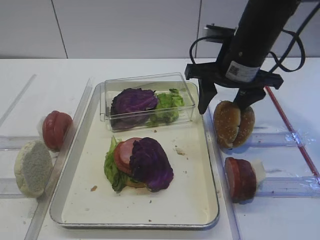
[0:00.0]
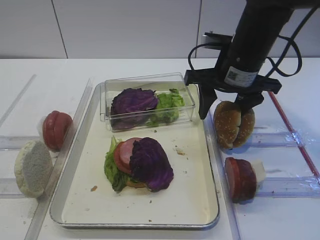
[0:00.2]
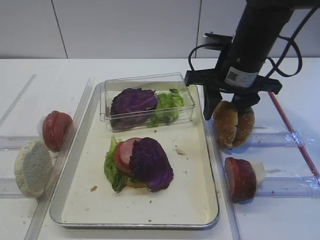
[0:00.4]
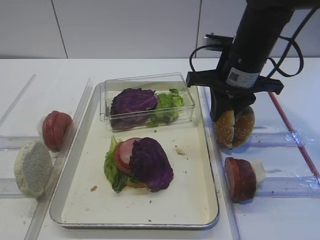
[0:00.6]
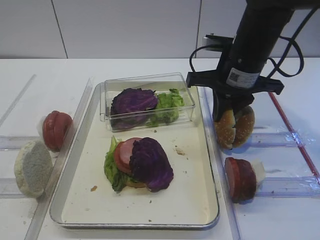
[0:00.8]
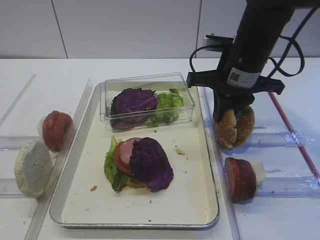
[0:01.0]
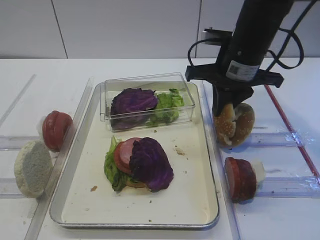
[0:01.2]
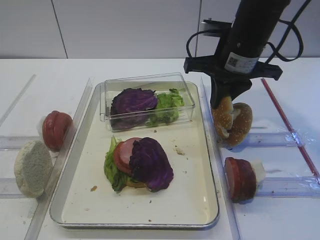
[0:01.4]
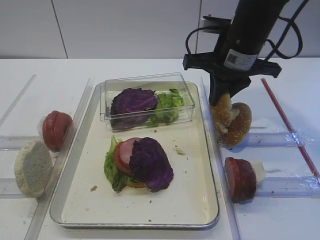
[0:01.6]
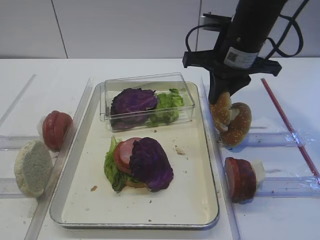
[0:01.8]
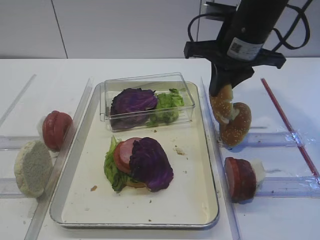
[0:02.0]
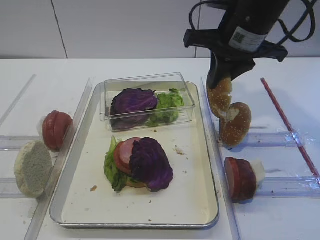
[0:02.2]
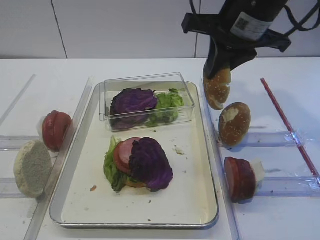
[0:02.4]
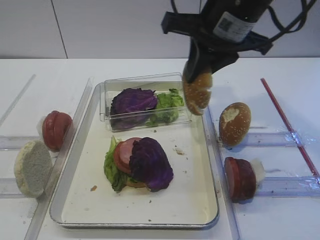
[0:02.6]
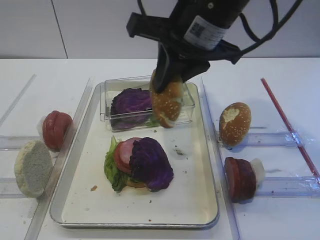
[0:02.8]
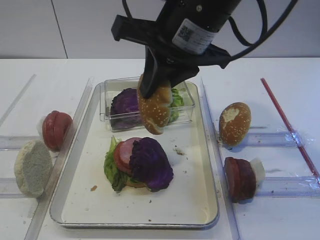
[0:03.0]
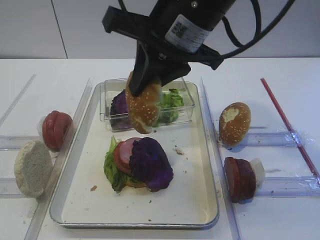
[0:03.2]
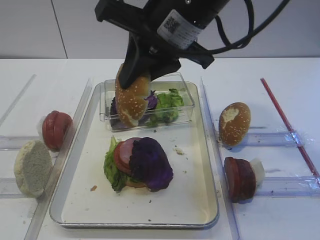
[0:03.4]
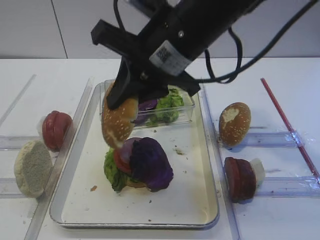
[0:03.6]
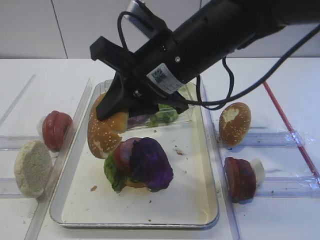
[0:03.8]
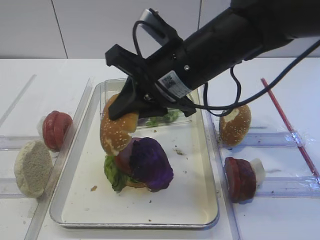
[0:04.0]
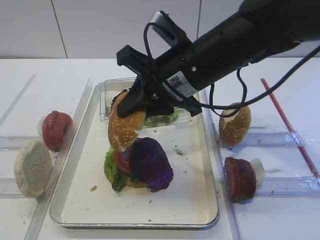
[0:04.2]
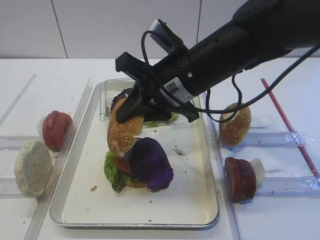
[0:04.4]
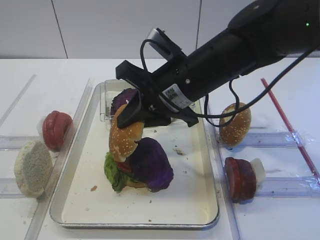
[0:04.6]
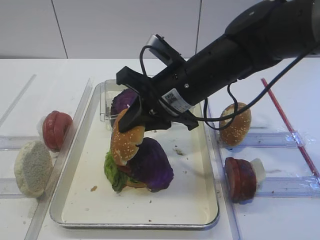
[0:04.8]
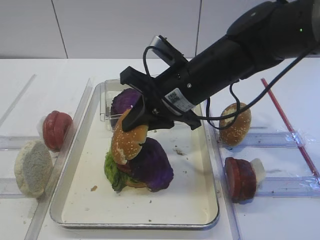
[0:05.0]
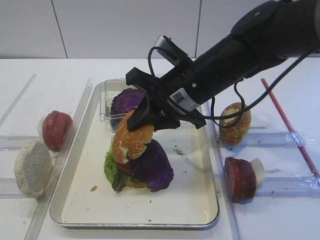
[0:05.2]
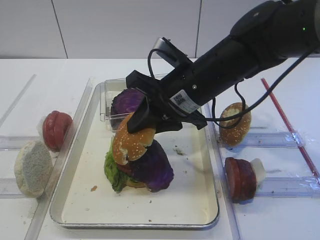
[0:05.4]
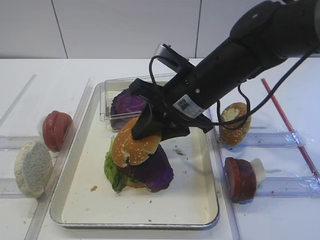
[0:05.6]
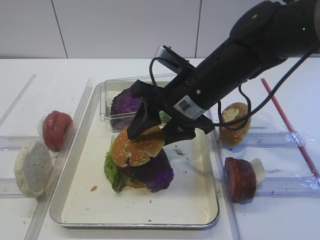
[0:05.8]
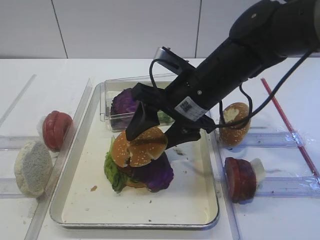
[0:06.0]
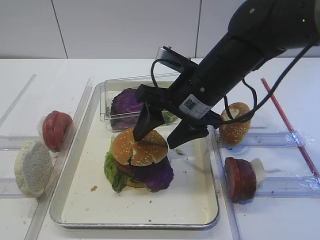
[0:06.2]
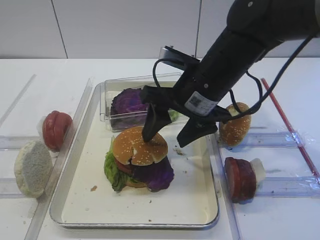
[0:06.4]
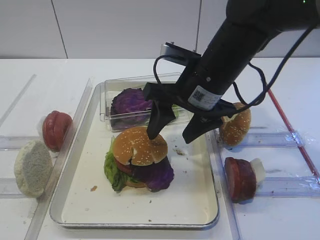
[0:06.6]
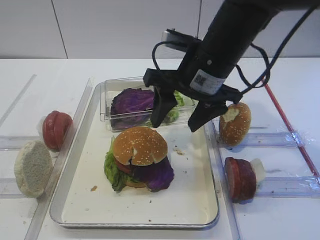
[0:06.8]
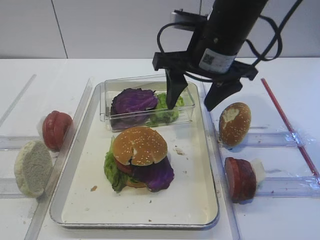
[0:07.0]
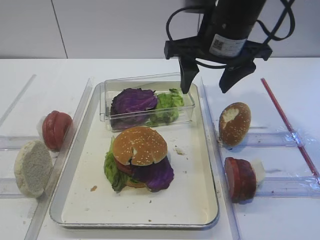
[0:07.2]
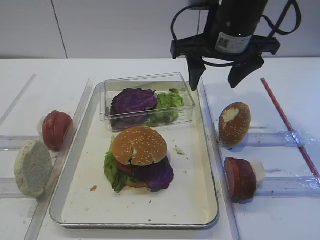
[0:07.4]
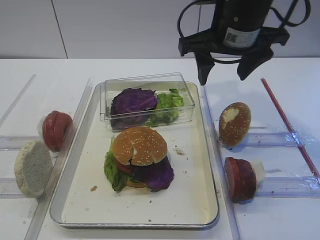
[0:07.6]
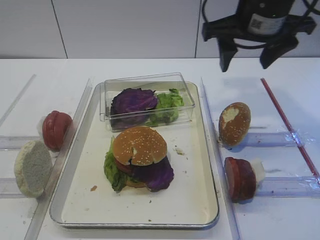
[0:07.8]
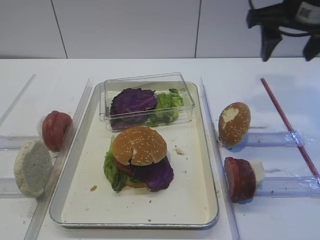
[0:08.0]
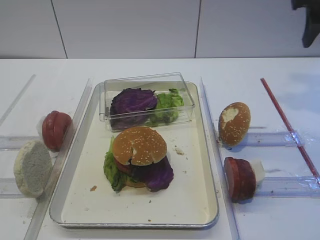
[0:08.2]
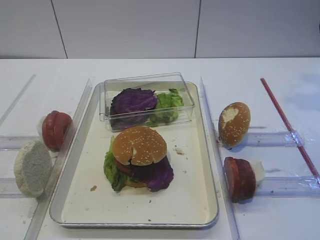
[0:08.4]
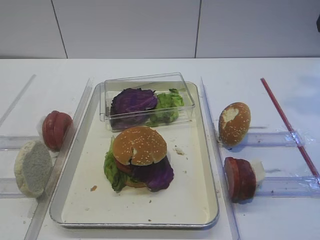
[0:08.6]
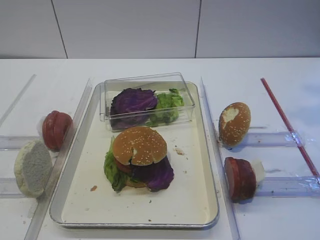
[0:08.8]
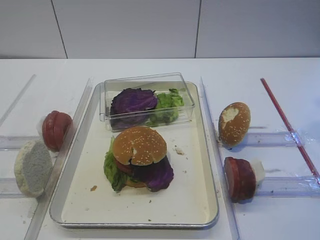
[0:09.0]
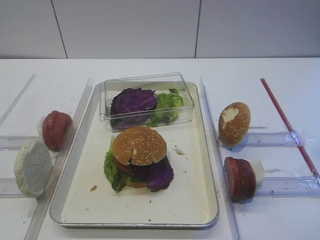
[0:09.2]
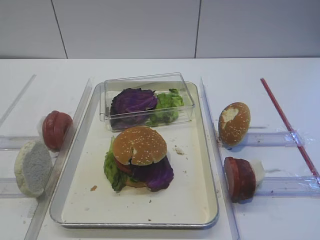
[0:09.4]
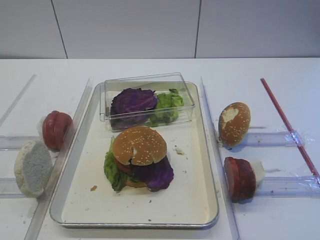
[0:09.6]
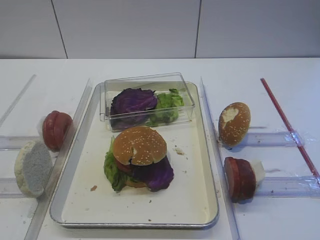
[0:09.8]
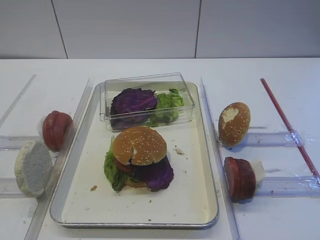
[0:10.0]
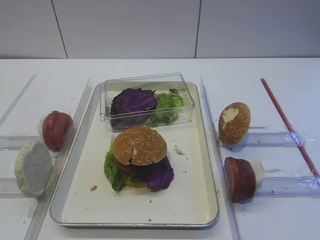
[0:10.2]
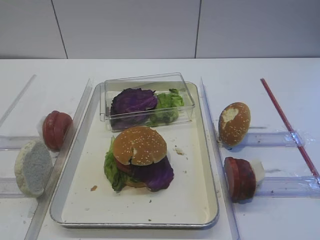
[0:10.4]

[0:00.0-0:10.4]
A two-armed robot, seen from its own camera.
Step, 0:02.0 to 0:06.0: Place the hamburger lid on the purple cabbage with the right gripper.
0:00.0 to 0:01.4: The right gripper closes up.
0:01.4 to 0:03.0: The right gripper moves to the left, upward and backward, about 15 cm.
0:03.0 to 0:04.4: The right gripper shifts roughly 10 cm downward.
0:04.4 to 0:06.0: The right gripper opens its fingers.
0:06.0 to 0:07.4: The right gripper shifts approximately 10 cm upward.
0:07.4 to 0:09.0: The right gripper moves to the right, backward and upward, about 20 cm.

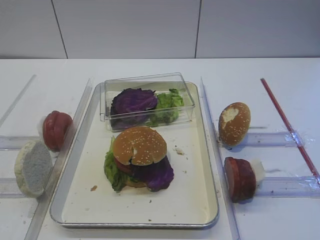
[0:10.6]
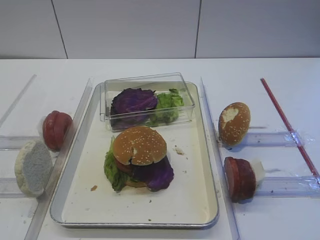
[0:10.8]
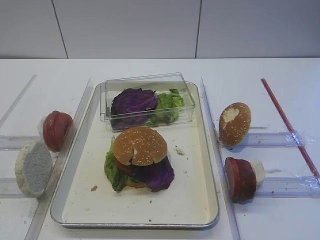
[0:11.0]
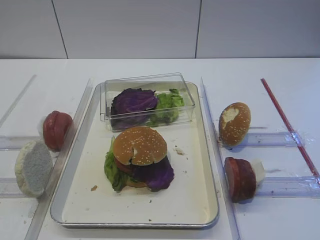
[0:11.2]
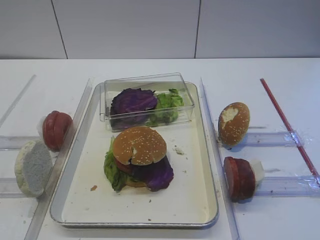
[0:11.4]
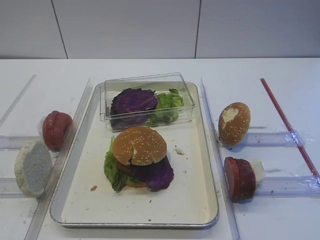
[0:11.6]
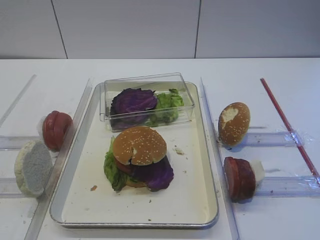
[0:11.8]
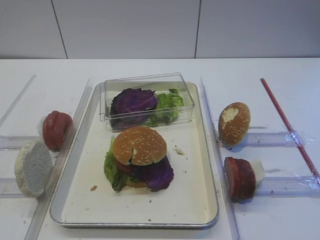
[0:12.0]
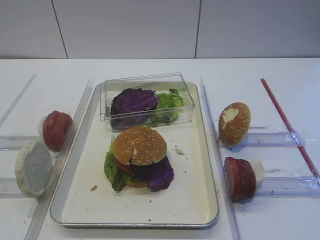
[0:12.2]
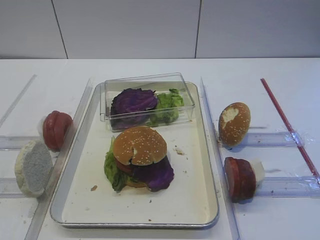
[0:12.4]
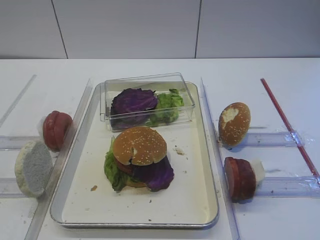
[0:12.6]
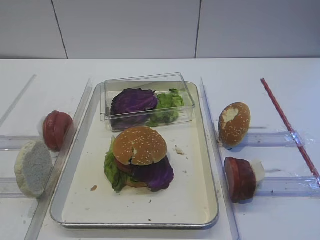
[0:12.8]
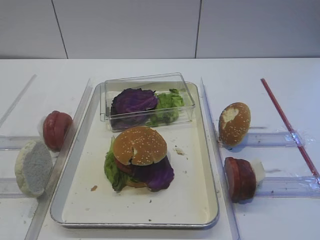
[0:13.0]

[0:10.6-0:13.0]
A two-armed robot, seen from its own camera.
0:11.8 to 0:13.0: Both grippers stay put.
